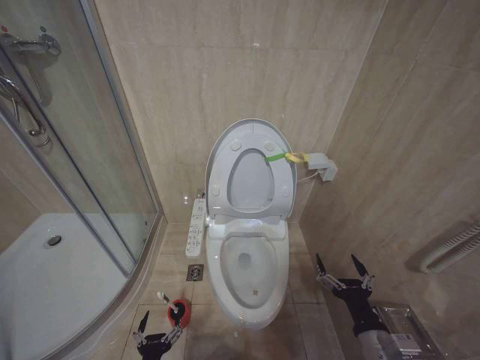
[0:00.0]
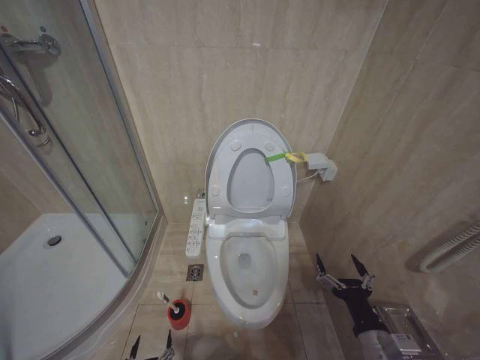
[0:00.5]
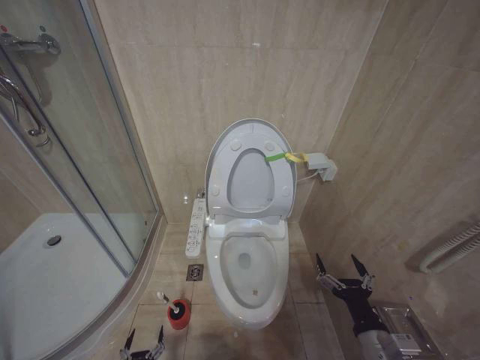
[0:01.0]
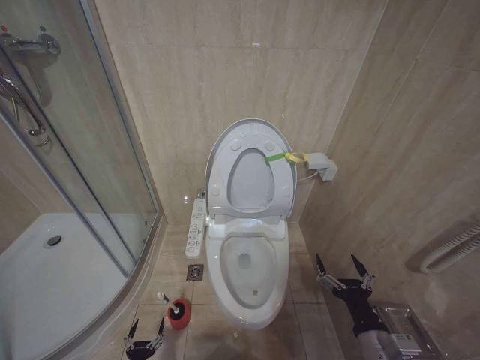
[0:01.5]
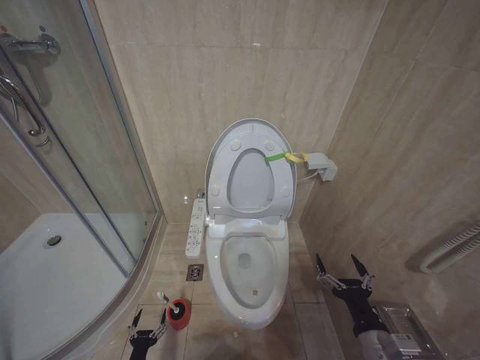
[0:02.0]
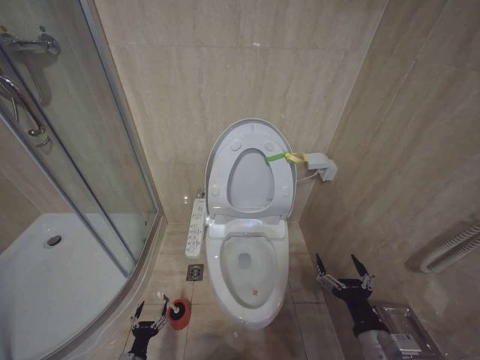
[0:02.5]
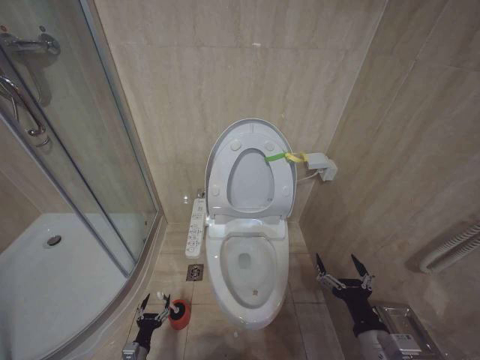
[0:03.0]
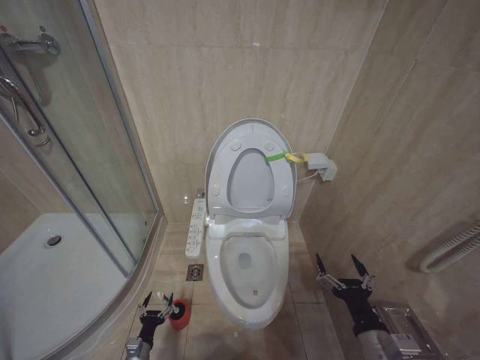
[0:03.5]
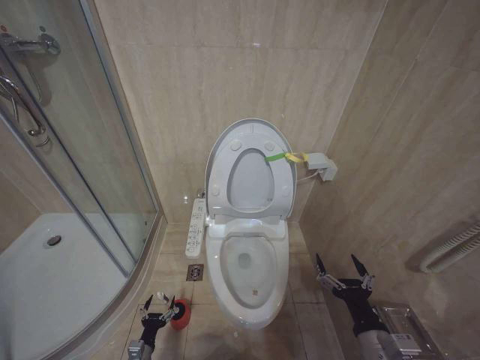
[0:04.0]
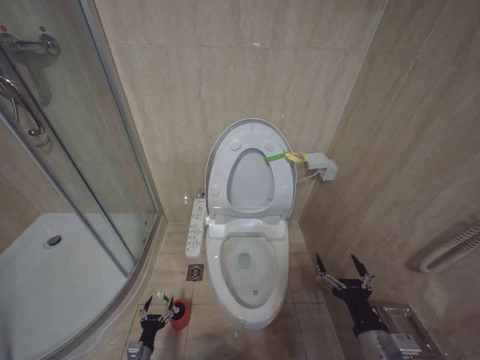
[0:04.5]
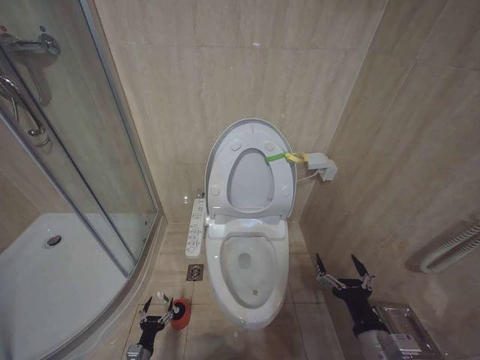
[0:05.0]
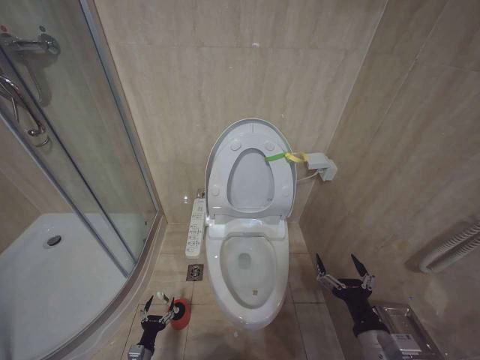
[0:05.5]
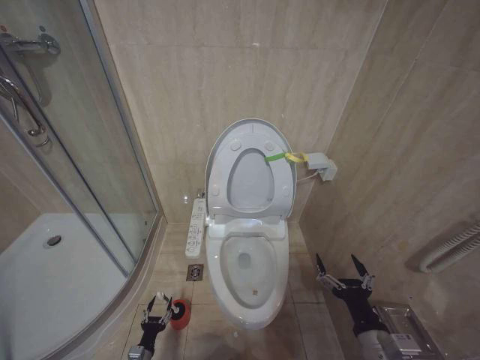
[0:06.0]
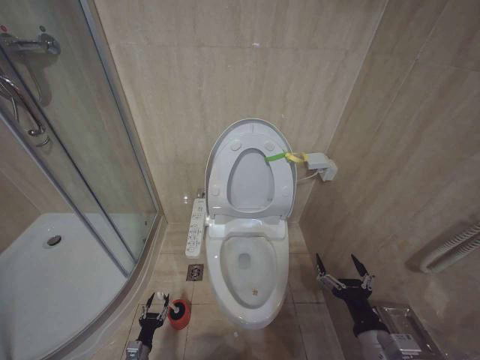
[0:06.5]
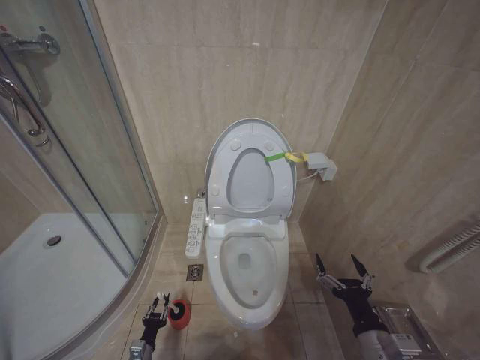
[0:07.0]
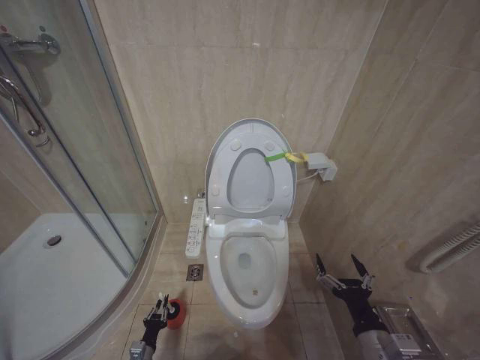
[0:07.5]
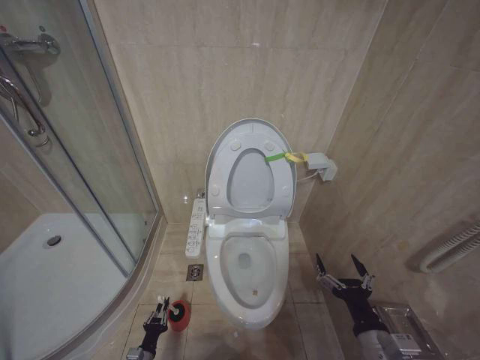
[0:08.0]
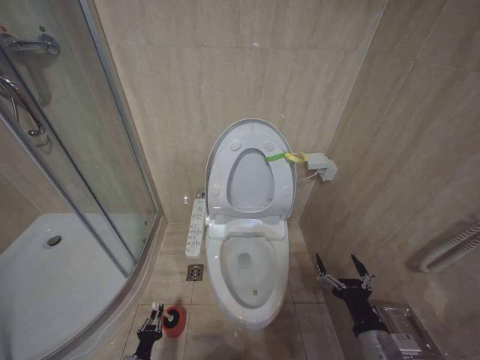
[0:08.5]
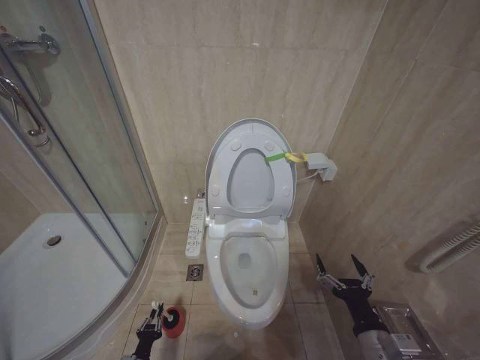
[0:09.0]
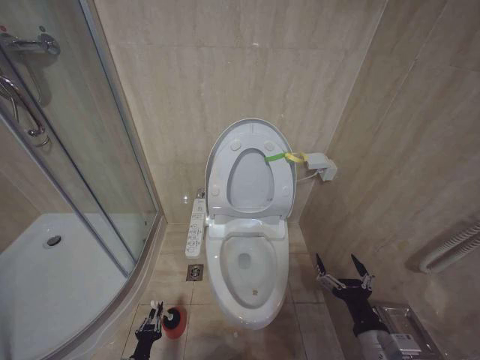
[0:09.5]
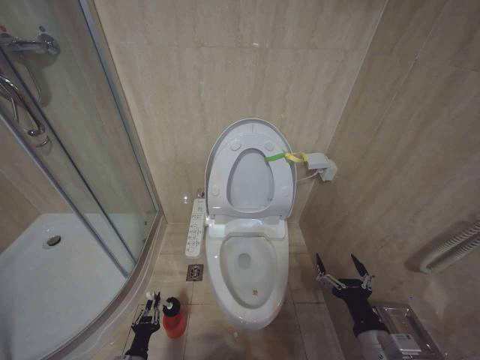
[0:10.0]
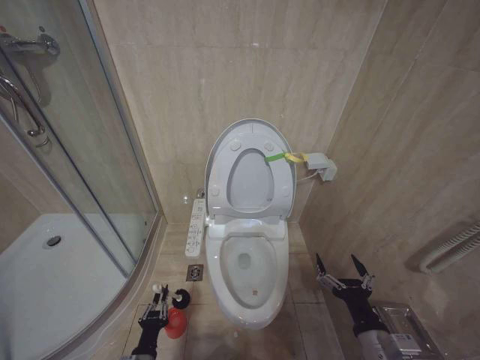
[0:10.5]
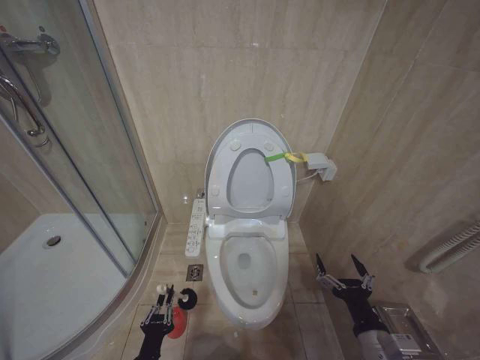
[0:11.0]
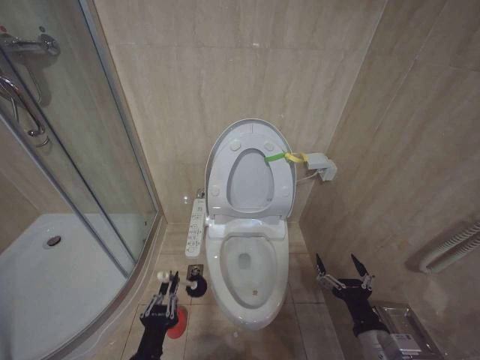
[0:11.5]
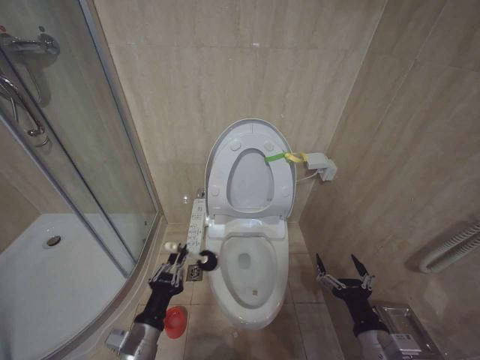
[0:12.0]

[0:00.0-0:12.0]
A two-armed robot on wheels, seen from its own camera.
Task of the whole recording: Open the toilet lid, clean the toilet bowl with a toilet brush, close the toilet lid, and flush.
0:00.0 to 0:02.0: The left gripper moves downward and to the left, roughly 20 cm.
0:02.0 to 0:04.0: The left gripper shifts roughly 5 cm forward.
0:08.0 to 0:10.0: The left gripper moves upward, about 5 cm.
0:10.0 to 0:12.0: The left gripper moves upward, some 25 cm.

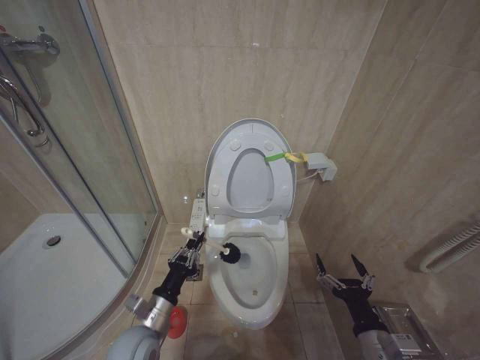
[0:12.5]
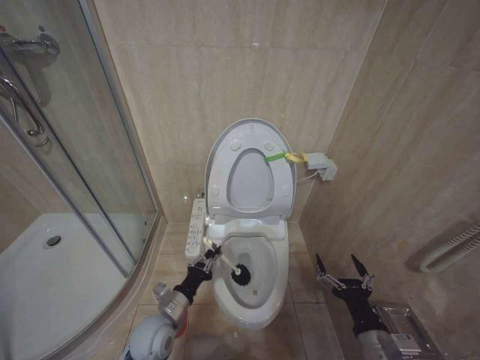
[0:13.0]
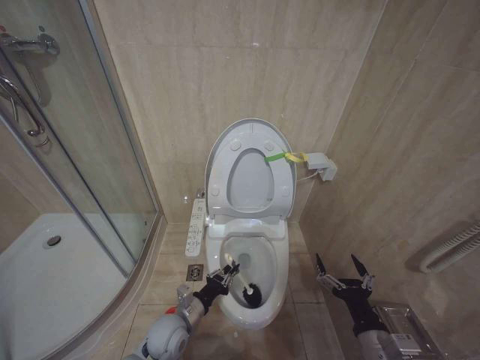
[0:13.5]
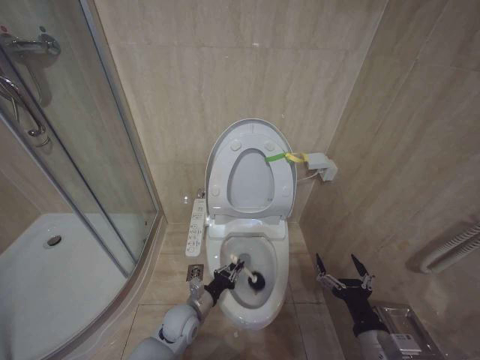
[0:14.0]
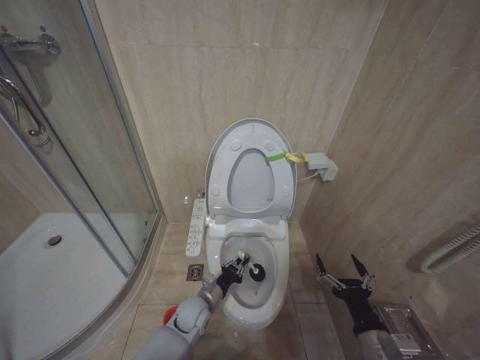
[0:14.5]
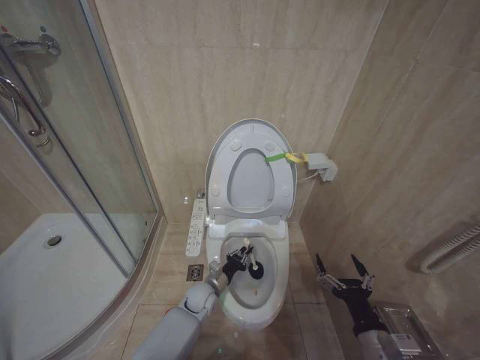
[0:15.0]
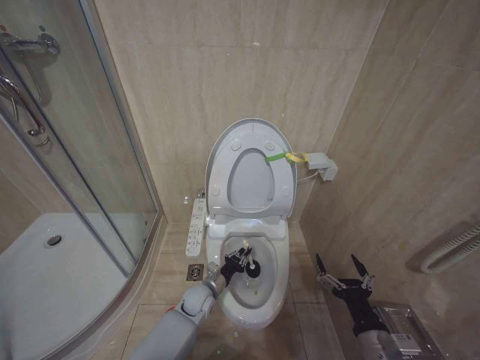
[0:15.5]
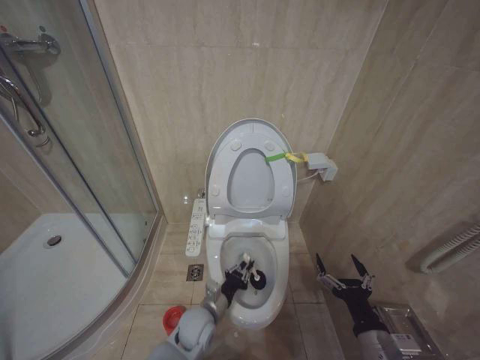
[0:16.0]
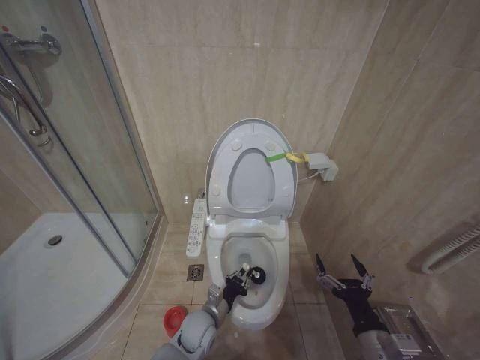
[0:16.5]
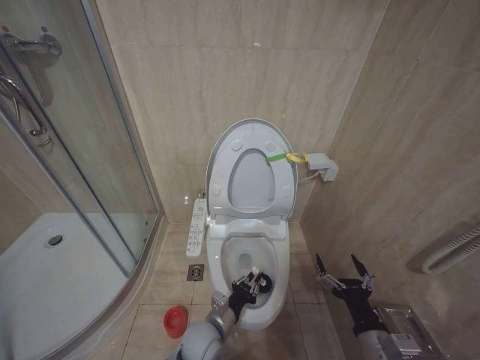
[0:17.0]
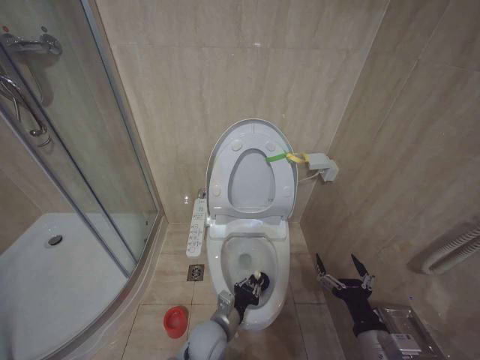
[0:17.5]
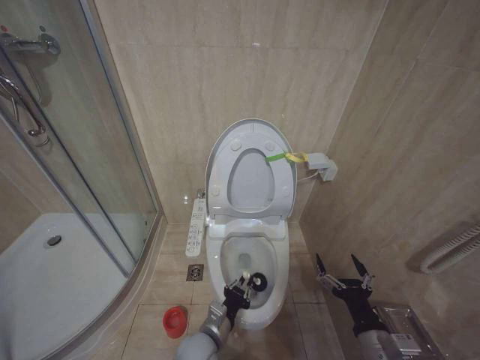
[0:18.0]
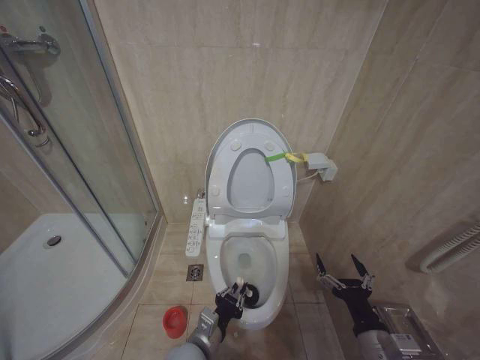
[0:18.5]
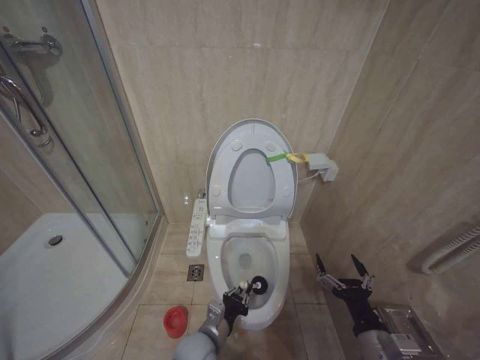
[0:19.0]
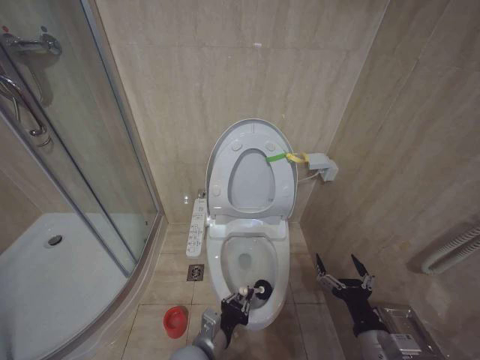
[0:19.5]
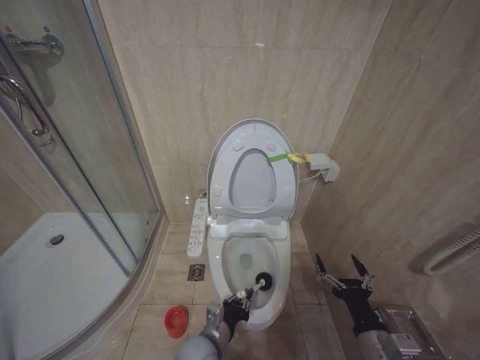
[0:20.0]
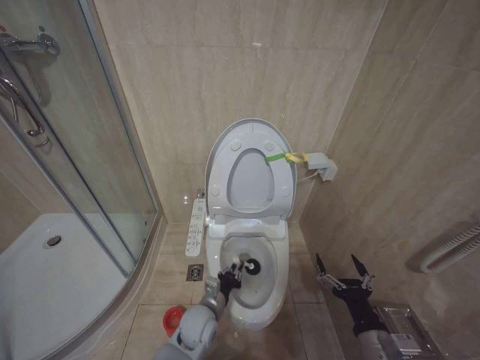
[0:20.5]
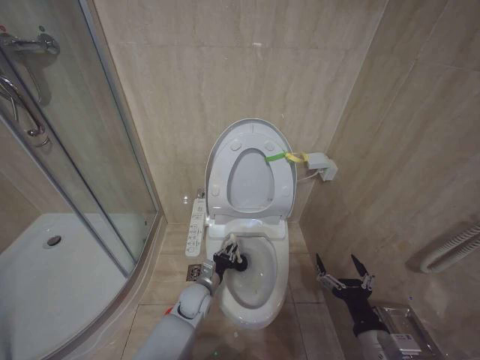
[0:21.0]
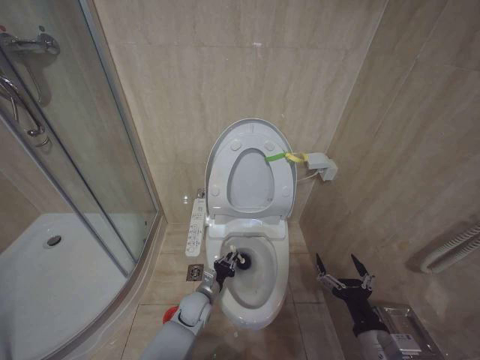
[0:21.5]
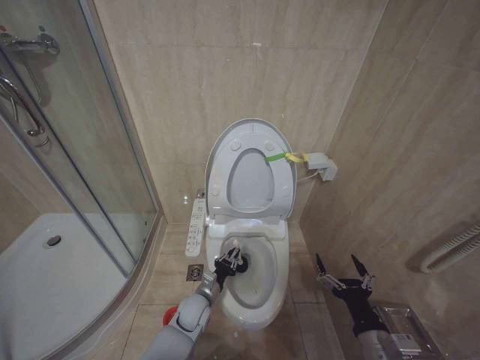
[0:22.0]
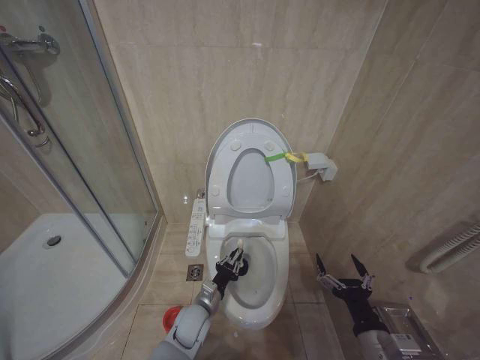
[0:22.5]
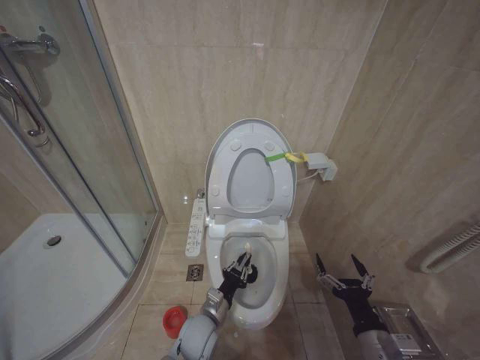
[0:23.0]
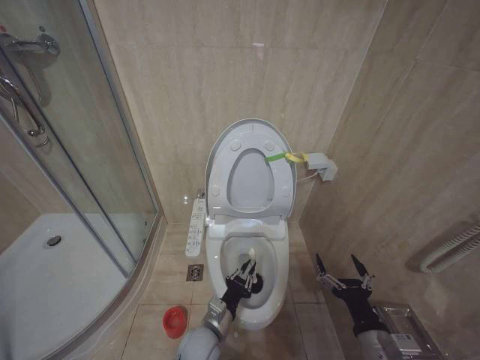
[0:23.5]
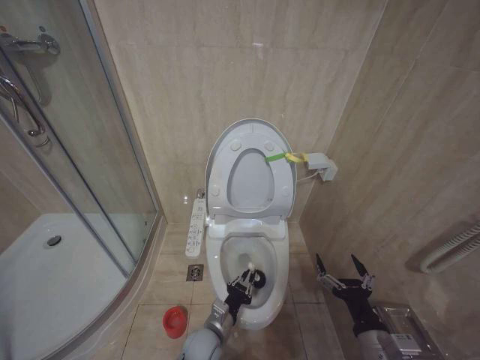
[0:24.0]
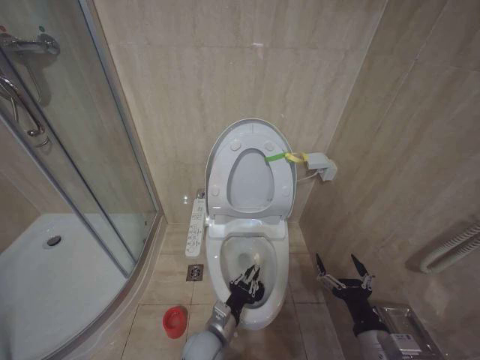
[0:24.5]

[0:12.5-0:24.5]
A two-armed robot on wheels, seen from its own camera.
Task of the whole recording: Open the toilet lid, clean the toilet bowl with a toilet brush, close the toilet lid, and flush.
0:12.5 to 0:14.5: The left gripper shifts some 20 cm downward, forward and to the right.
0:16.5 to 0:18.5: The left gripper goes some 10 cm backward and upward.
0:18.5 to 0:20.5: The left gripper heads forward and downward, covering some 10 cm.
0:20.5 to 0:22.5: The left gripper goes forward and returns, roughly 10 cm each way.
0:22.5 to 0:24.5: The left gripper is displaced backward by roughly 5 cm.

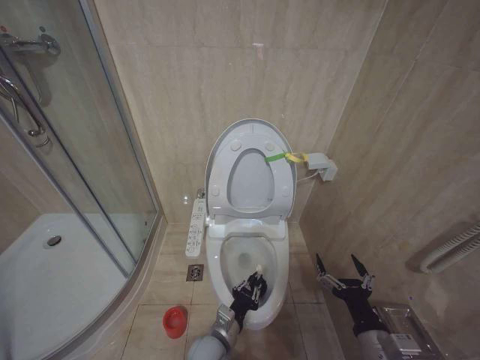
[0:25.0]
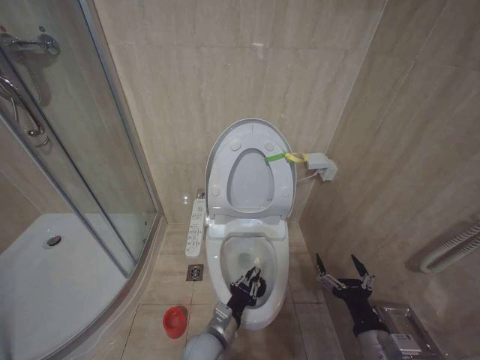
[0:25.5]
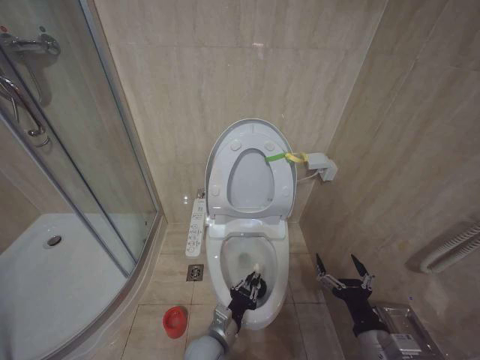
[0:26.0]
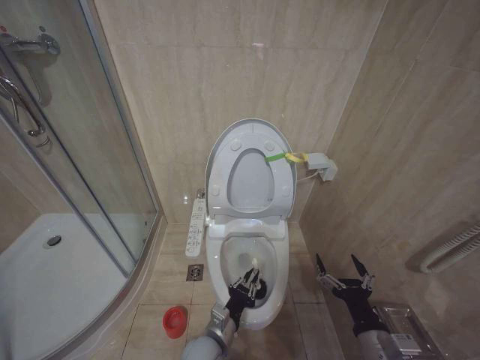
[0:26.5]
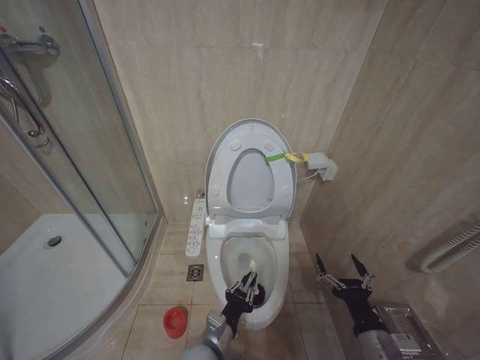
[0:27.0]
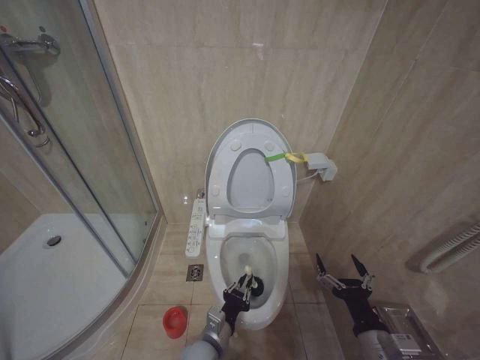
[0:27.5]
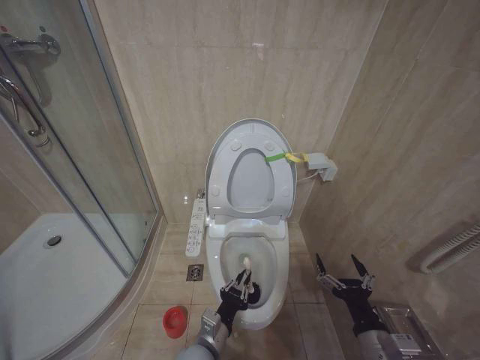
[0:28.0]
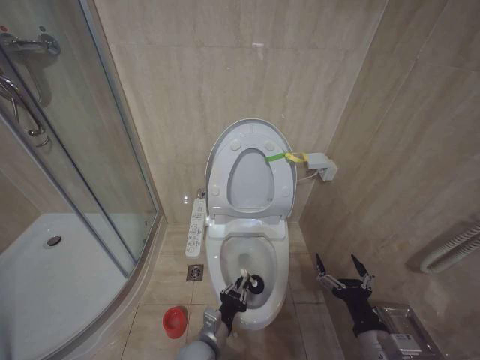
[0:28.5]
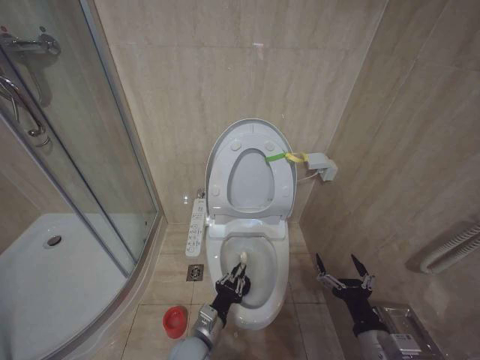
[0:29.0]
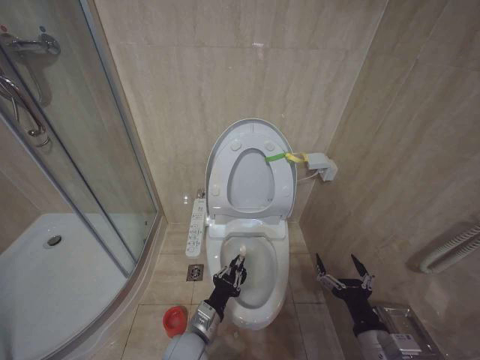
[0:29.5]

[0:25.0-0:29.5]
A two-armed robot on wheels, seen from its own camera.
Task of the whole recording: Open the toilet lid, clean the toilet bowl with a toilet brush, close the toilet lid, and flush.
0:25.0 to 0:29.5: The grippers move only a little.
